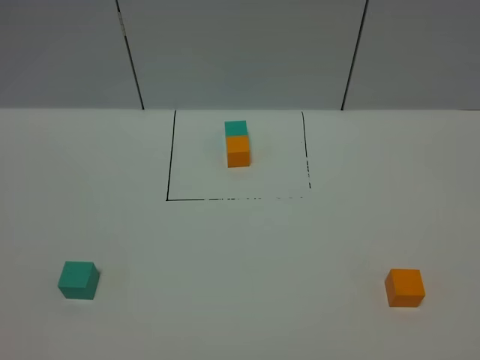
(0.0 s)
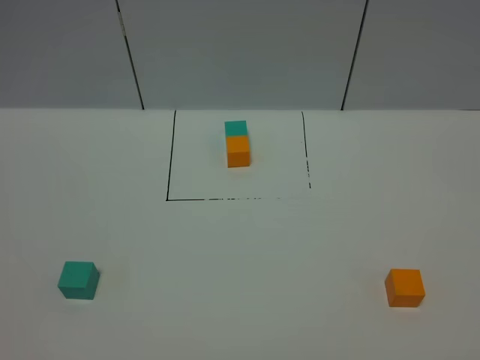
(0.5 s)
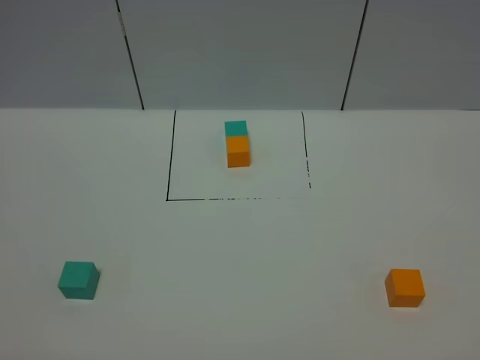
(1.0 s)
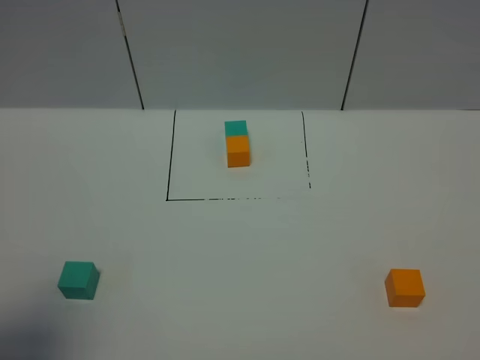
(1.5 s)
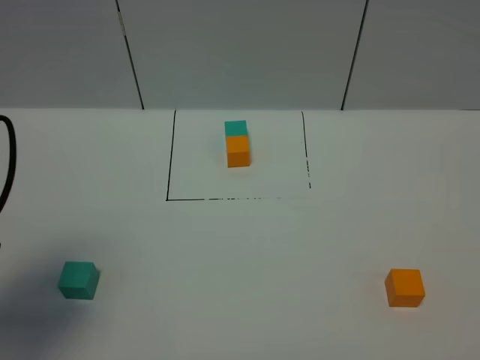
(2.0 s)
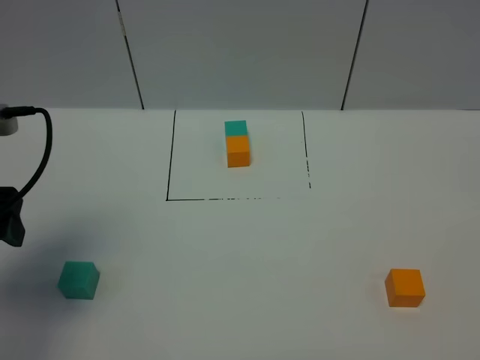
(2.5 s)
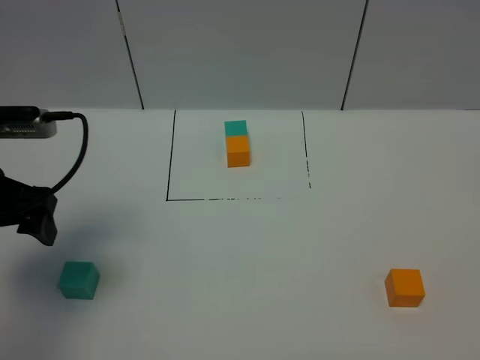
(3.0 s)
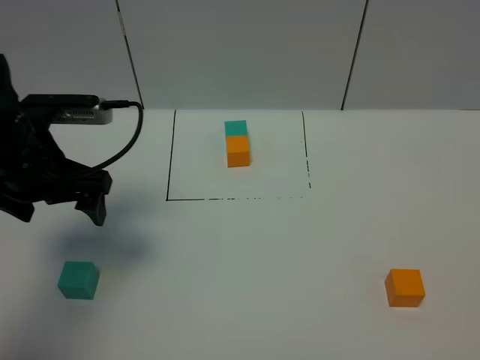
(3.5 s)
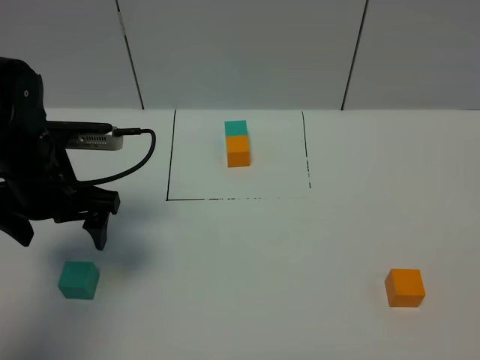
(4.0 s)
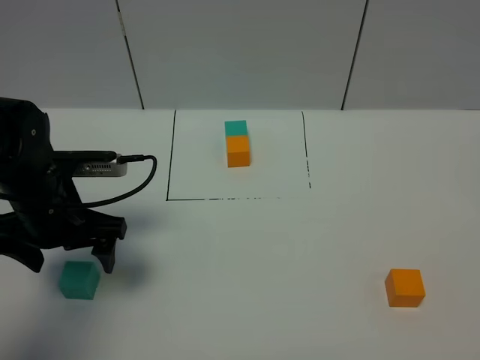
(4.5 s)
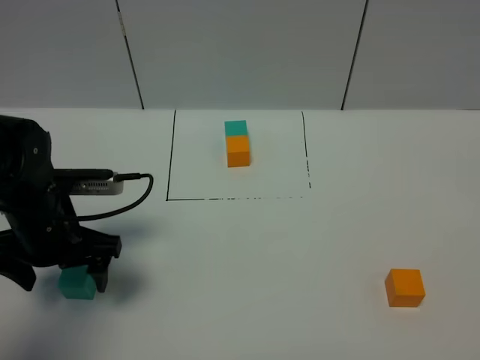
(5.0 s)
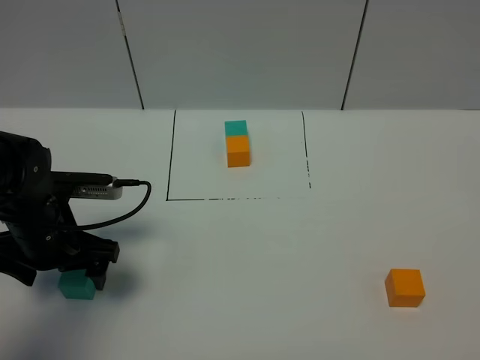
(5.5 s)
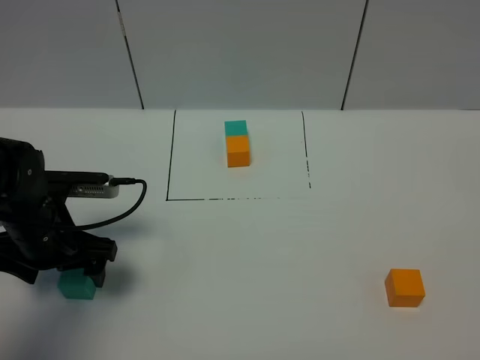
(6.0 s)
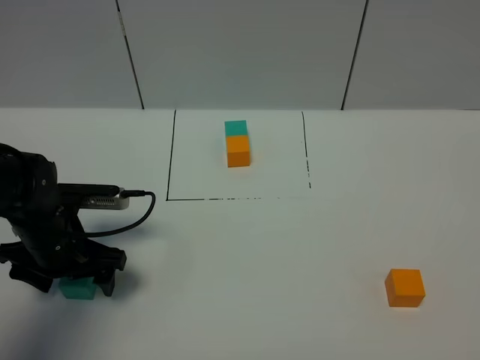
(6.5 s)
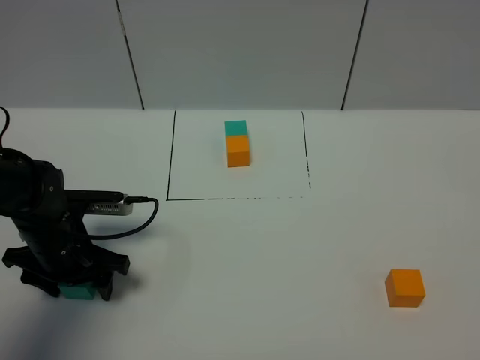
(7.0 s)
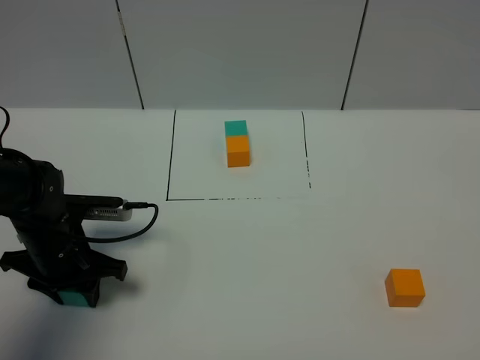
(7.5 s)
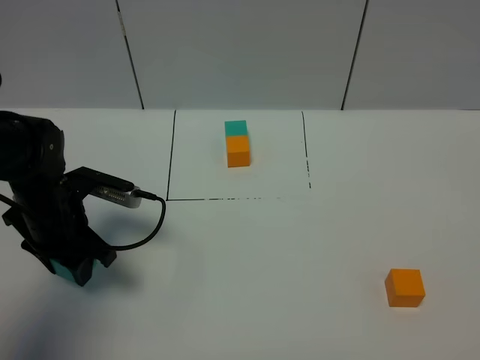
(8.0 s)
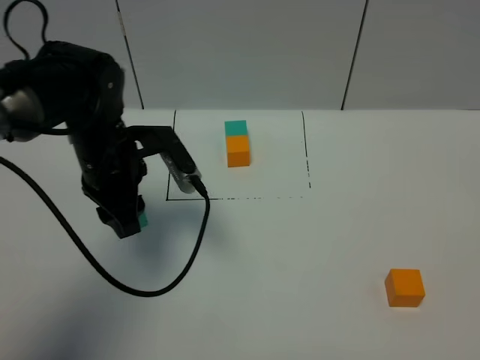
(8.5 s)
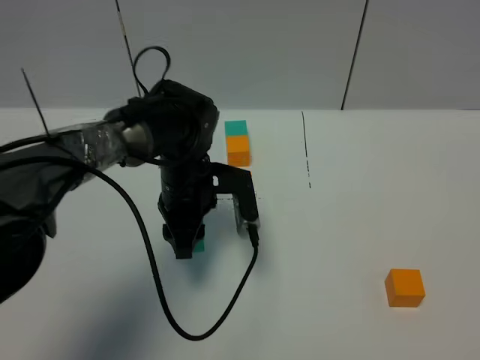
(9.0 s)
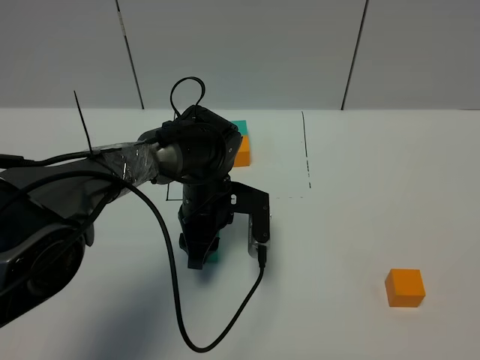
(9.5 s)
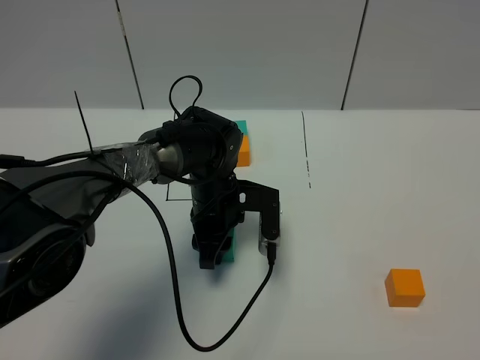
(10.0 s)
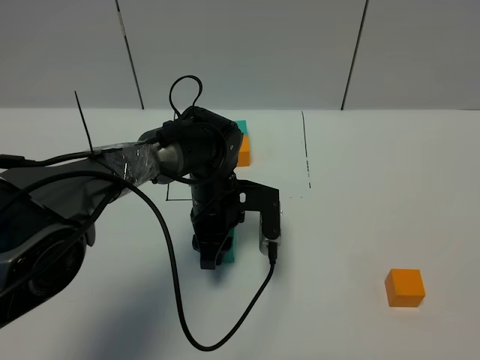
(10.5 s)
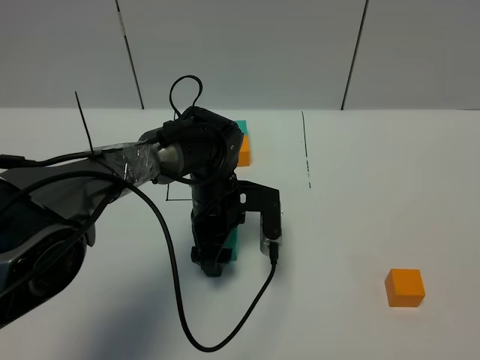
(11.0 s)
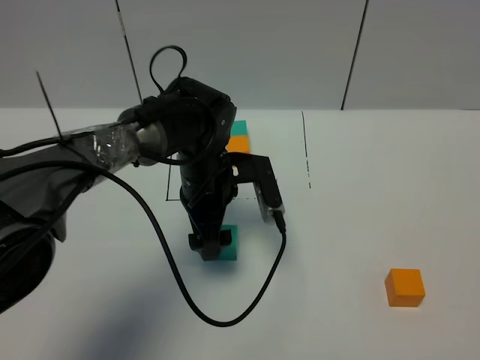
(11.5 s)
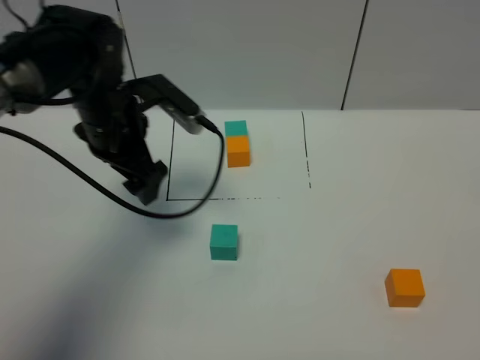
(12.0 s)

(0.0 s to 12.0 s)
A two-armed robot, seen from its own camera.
Task of the whole recording: According to the building block template in front, assemble the scattered blocks together.
Step, 0.0 s - 7.0 s: Grasp the green block with left gripper.
Step, 7.5 s - 11.5 s: Put the green cube in the center of the table with the left gripper.
0.0 s - 2.0 s: The left gripper shifts approximately 20 cm forward.
2.0 s - 4.0 s: The left gripper travels forward, downward and to the right by about 15 cm.
4.0 s - 6.0 s: The left gripper goes approximately 5 cm downward.
6.0 s - 8.0 s: The left gripper closes up.
8.0 s - 10.0 s: The left gripper shifts some 20 cm to the right.
10.0 s - 12.0 s: The left gripper travels upward and to the left by roughly 20 cm, and opens.

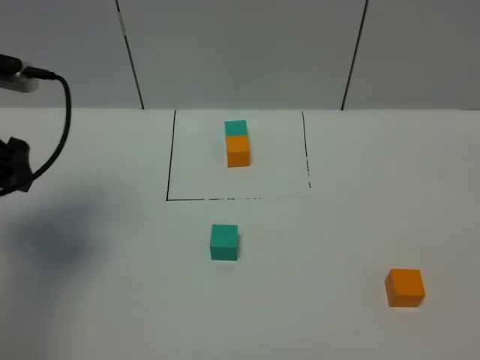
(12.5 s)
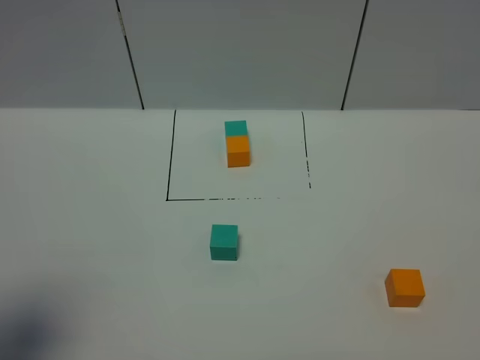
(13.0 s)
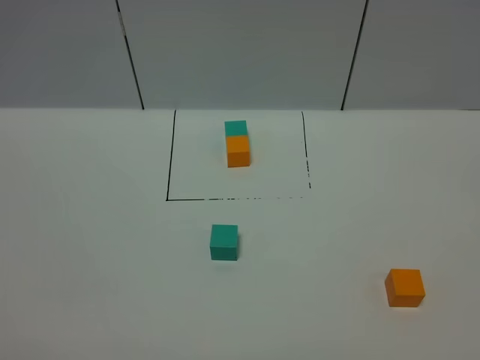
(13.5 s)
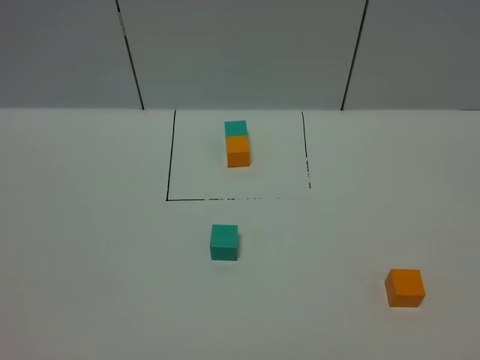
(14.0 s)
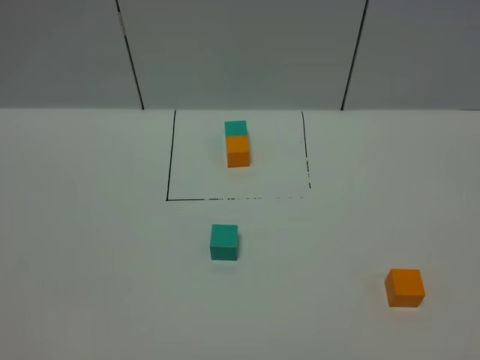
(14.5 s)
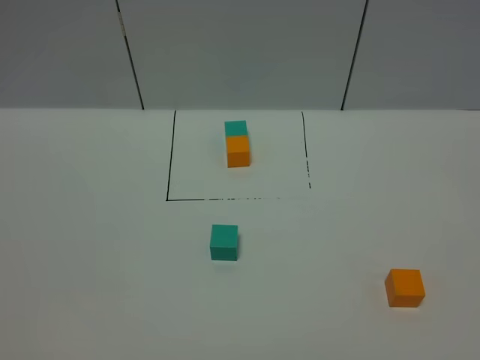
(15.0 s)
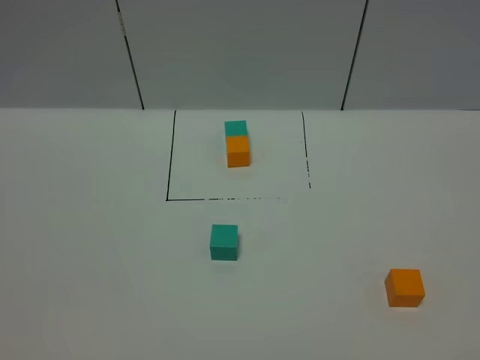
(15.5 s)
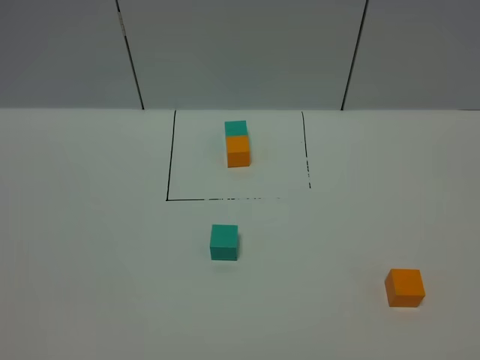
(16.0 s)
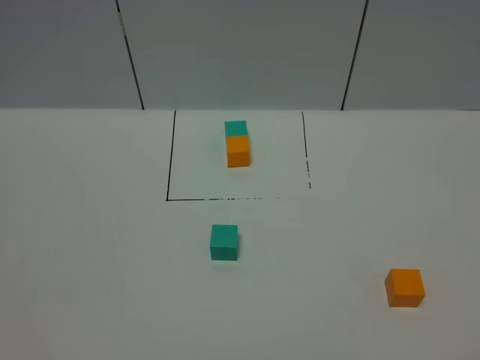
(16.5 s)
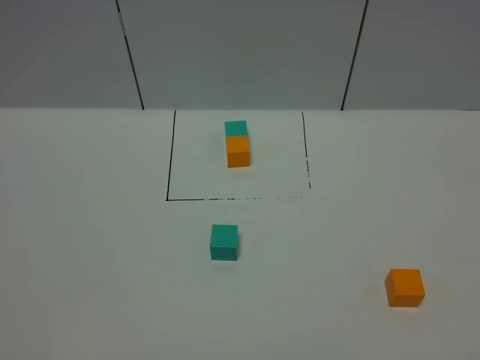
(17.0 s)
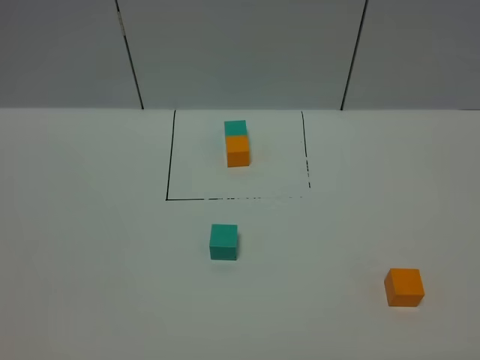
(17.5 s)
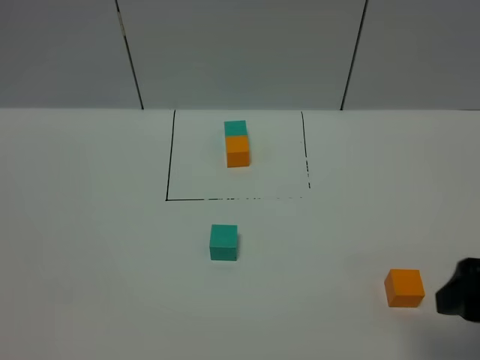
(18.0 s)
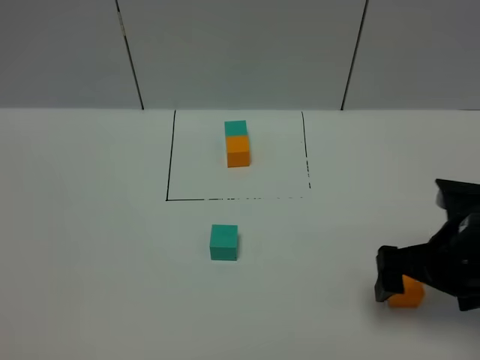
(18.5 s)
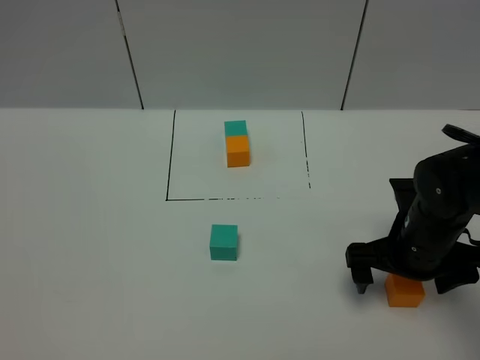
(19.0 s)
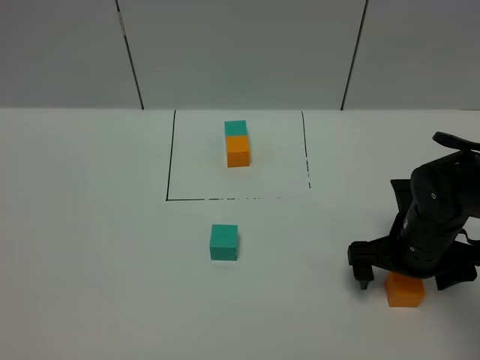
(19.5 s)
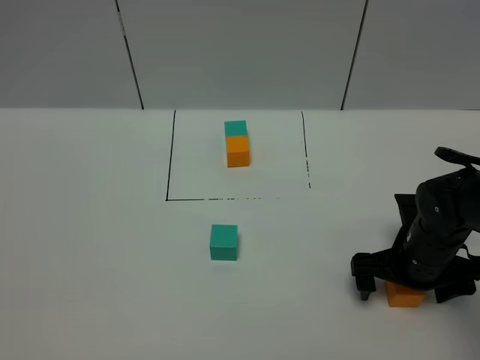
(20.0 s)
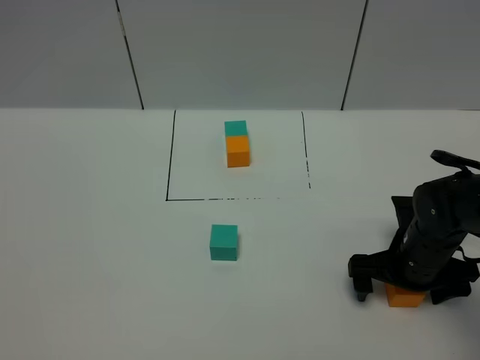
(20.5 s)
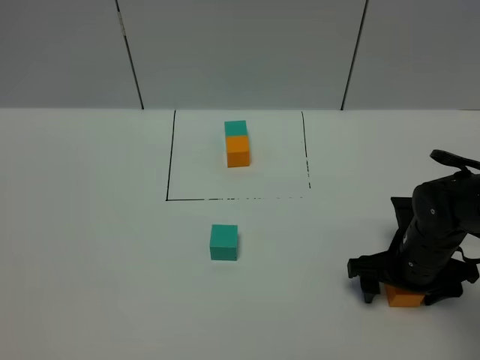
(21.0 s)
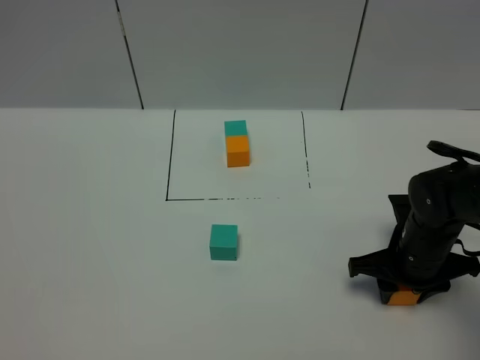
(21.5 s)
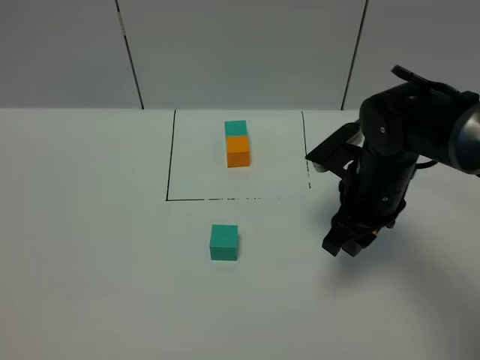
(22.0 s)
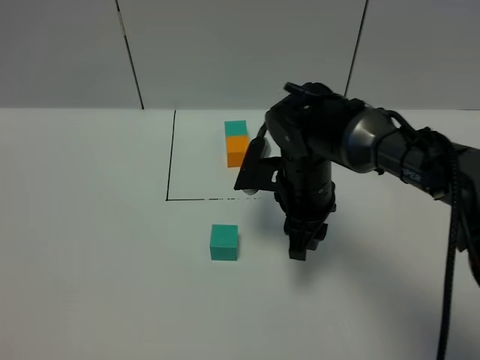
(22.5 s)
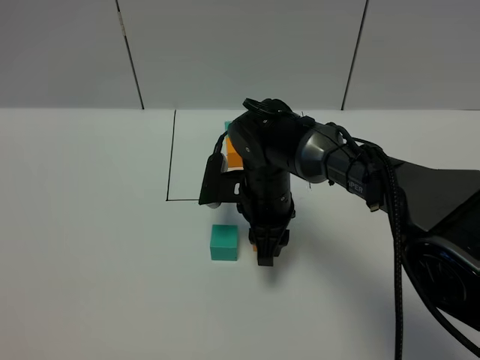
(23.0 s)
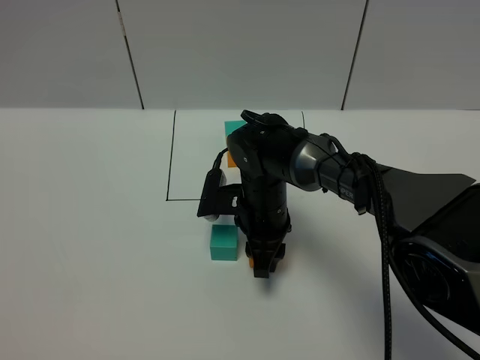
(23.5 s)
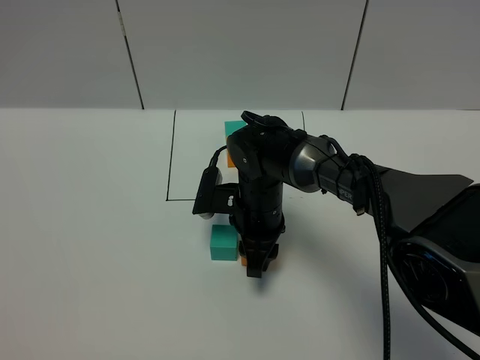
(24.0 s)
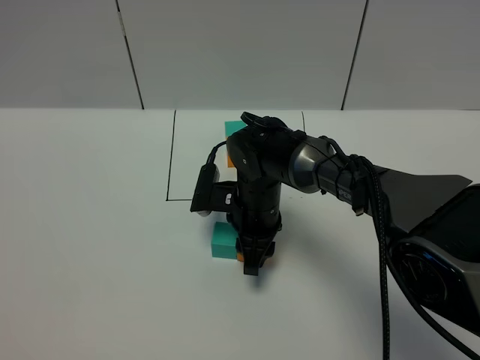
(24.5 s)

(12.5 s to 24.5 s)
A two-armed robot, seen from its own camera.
Task of the whole recording: According to the building block template in front, assemble the scattered blocks together.
Step, 12.5 s - 21.0 s: Grasp the orange block with right gripper.
12.5 s - 14.5 s: The left gripper heads backward, covering about 30 cm.
14.5 s - 16.5 s: Neither gripper changes place.
16.5 s - 18.5 s: The right gripper is displaced forward by some 25 cm.
18.5 s - 20.5 s: The right gripper heads downward and forward, covering approximately 10 cm.
20.5 s - 22.5 s: The right gripper goes roughly 20 cm to the left, forward and upward, and closes its fingers.
22.5 s - 24.5 s: The right gripper shifts about 5 cm downward.

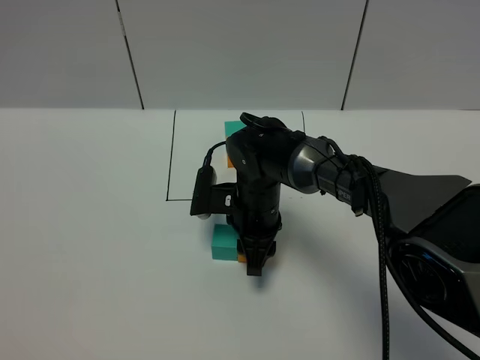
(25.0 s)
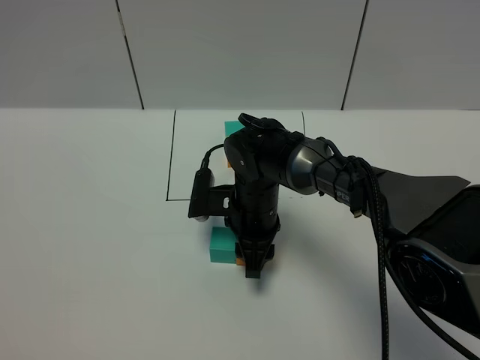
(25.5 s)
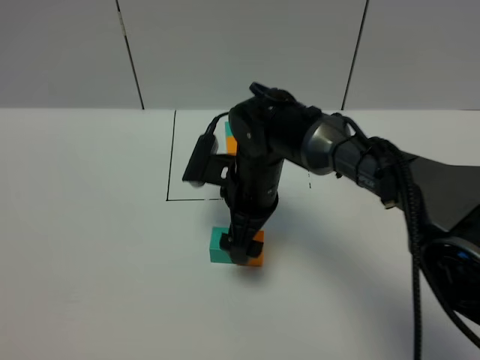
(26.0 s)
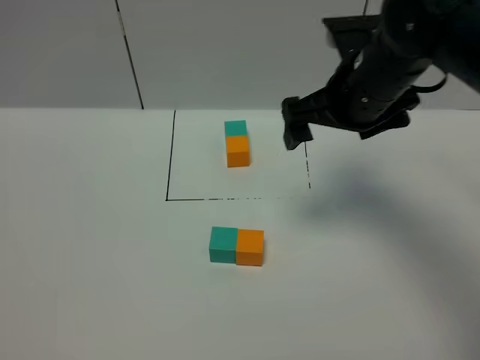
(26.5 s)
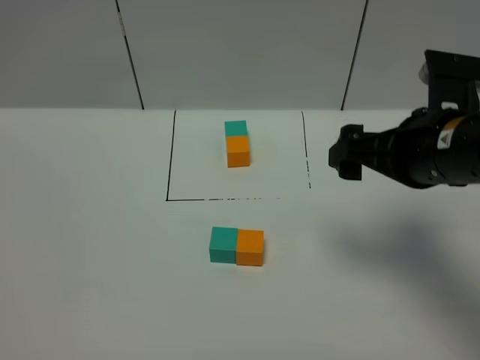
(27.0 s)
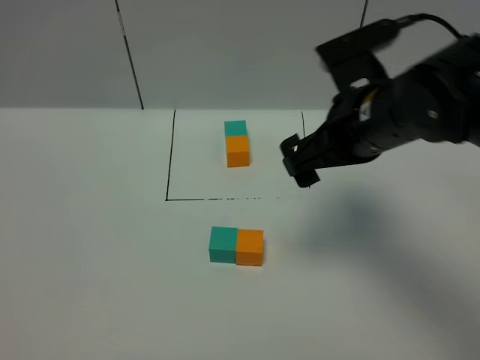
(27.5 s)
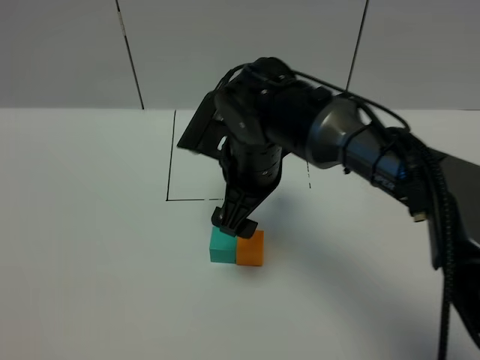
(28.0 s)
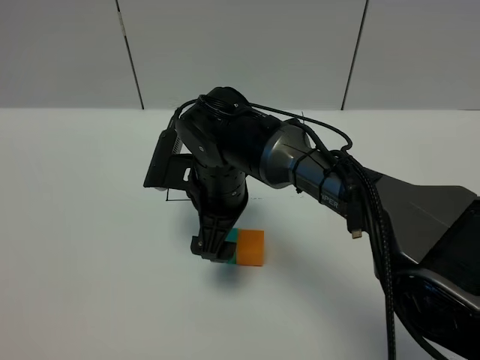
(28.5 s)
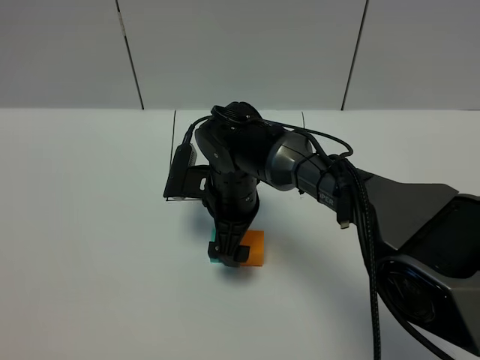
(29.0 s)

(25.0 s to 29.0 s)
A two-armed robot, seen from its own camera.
Task of the whole recording: According to the building block template in front, assemble the scattered blocks together.
25.0 s - 27.0 s: The right gripper heads upward, to the right and backward, covering some 25 cm, and opens up.
27.0 s - 29.0 s: The right gripper travels to the left, downward and forward by about 25 cm.
